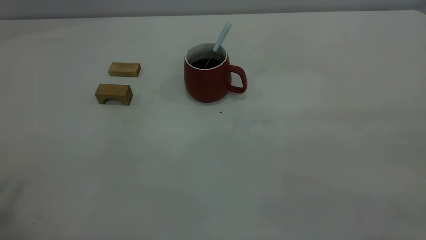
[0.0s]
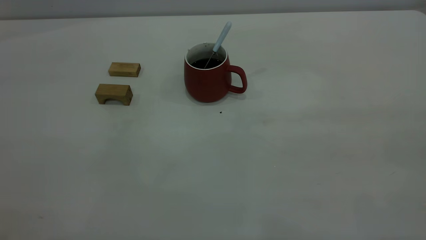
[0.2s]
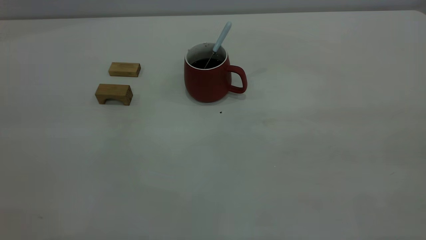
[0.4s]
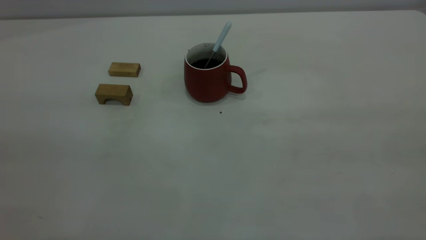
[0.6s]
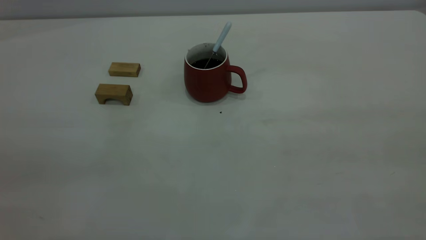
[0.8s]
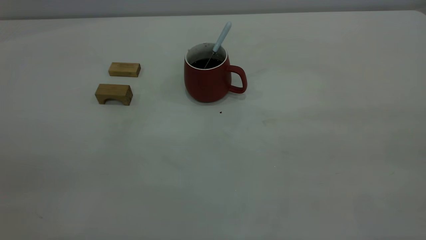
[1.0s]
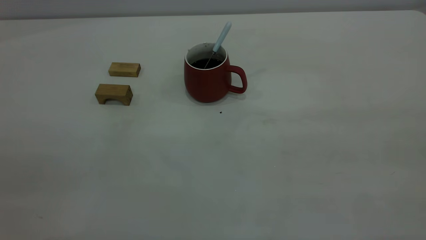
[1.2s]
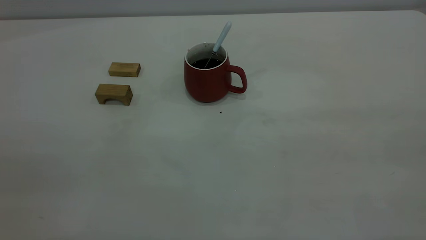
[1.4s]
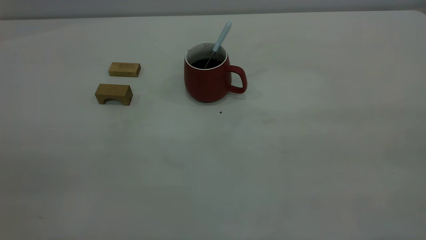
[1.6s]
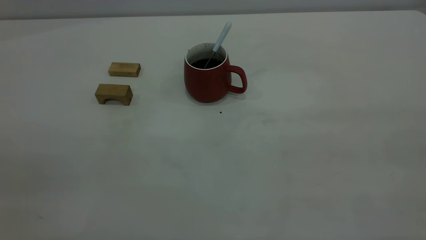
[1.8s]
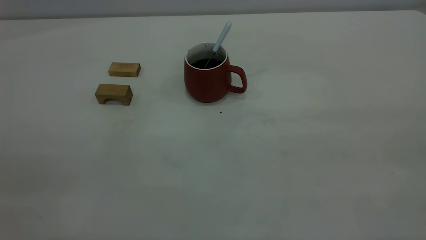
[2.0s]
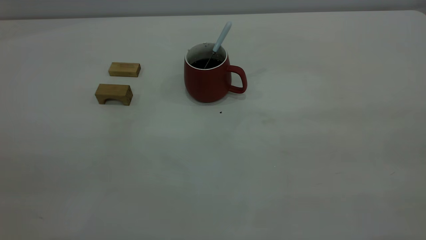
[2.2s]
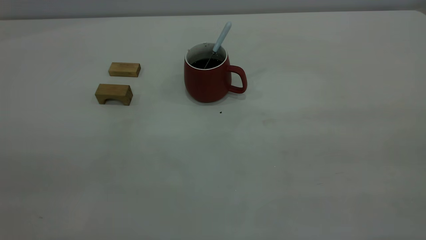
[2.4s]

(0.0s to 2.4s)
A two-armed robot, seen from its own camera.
1.2s - 2.4s: Neither gripper changes place.

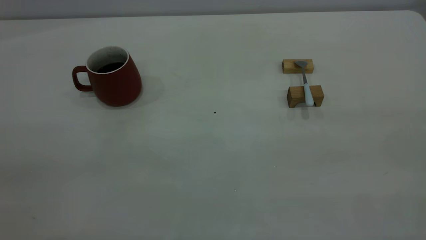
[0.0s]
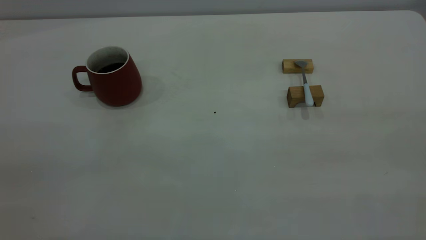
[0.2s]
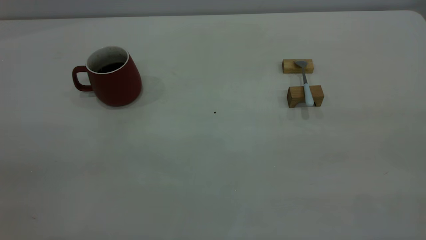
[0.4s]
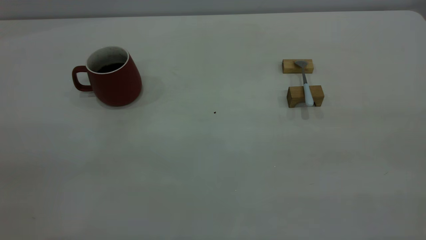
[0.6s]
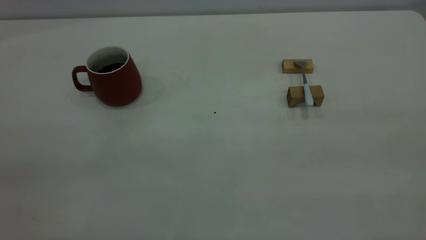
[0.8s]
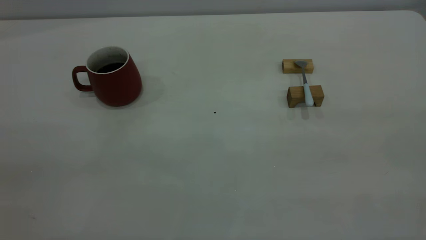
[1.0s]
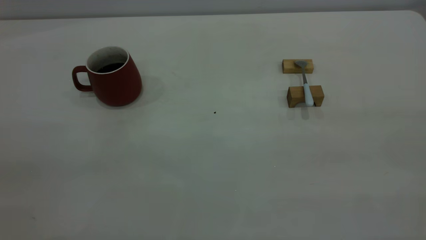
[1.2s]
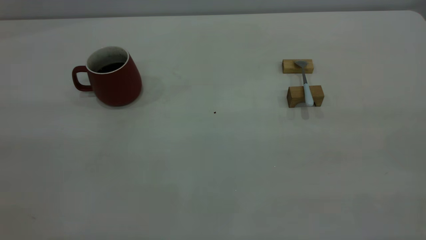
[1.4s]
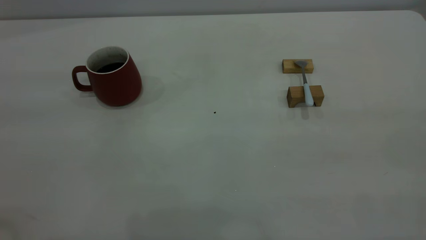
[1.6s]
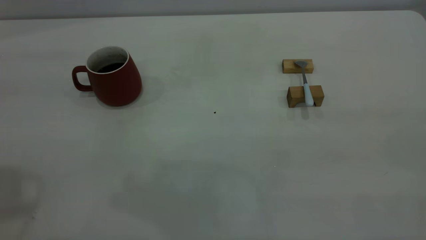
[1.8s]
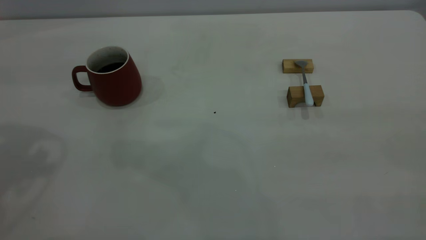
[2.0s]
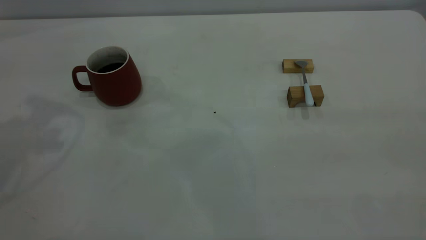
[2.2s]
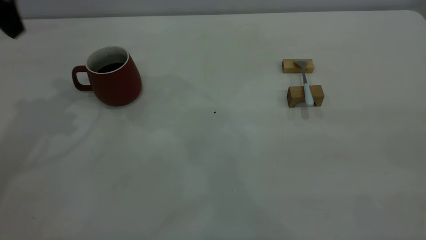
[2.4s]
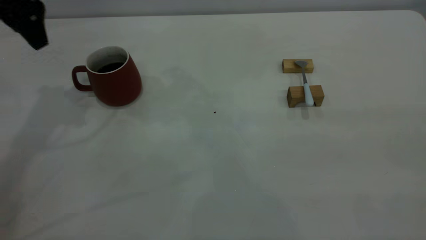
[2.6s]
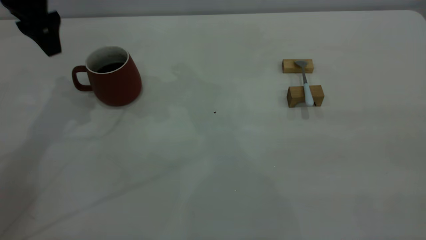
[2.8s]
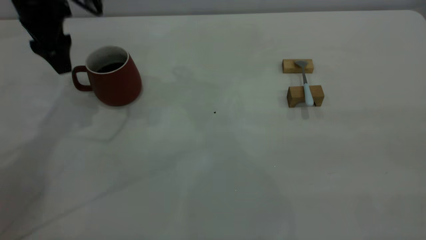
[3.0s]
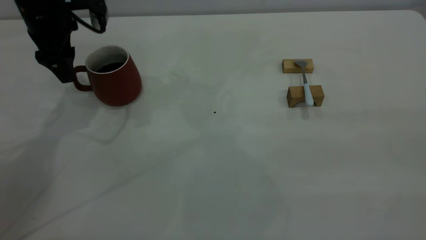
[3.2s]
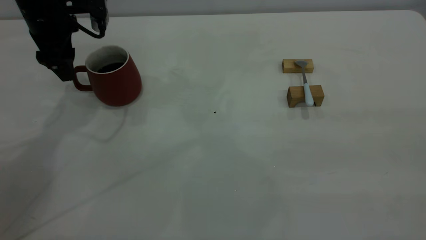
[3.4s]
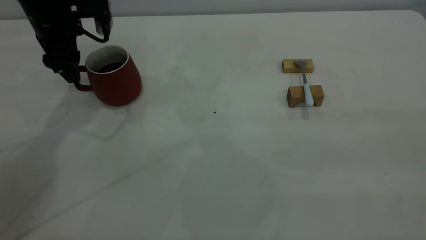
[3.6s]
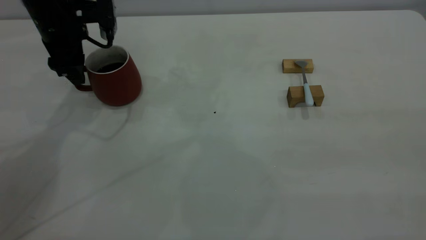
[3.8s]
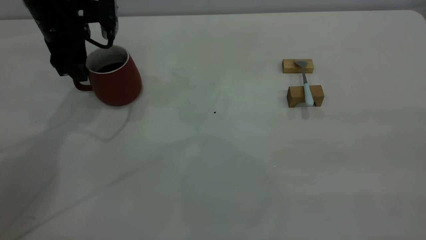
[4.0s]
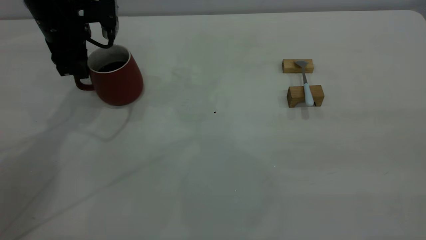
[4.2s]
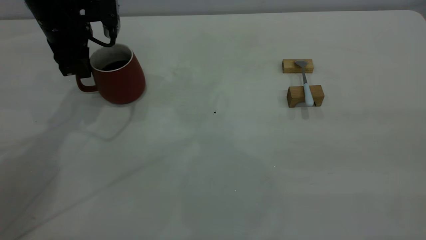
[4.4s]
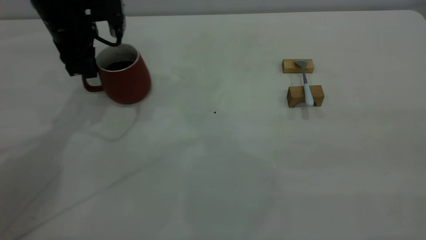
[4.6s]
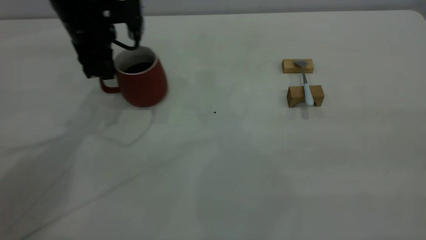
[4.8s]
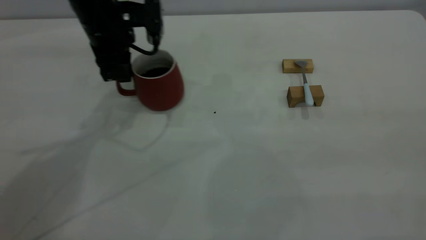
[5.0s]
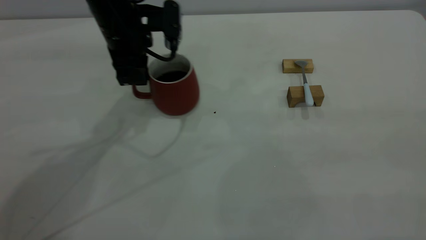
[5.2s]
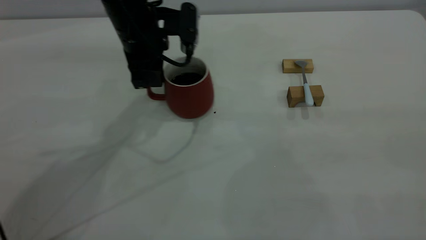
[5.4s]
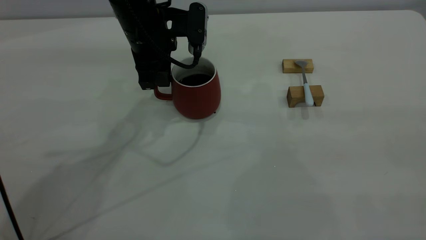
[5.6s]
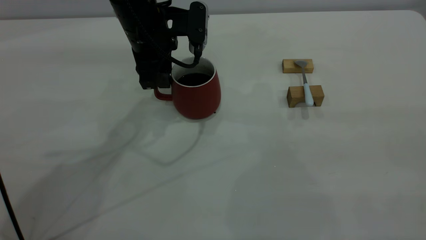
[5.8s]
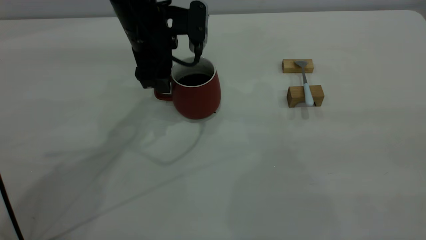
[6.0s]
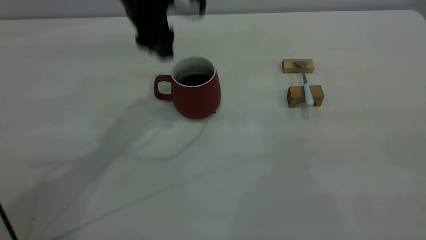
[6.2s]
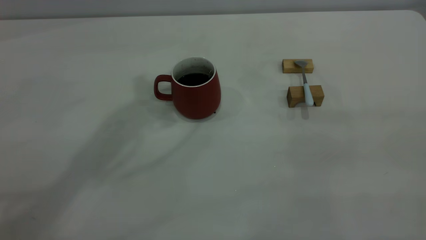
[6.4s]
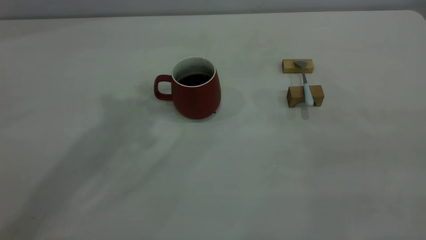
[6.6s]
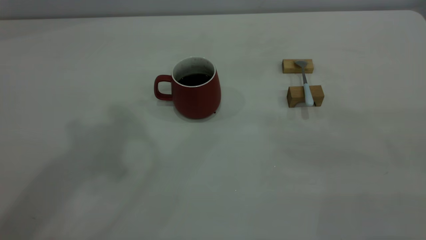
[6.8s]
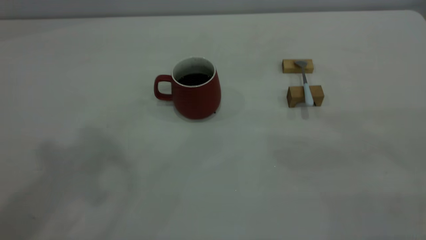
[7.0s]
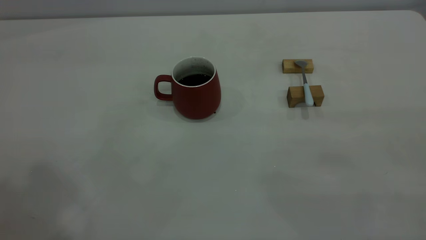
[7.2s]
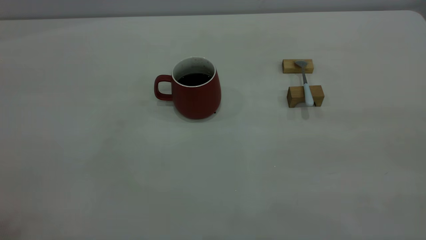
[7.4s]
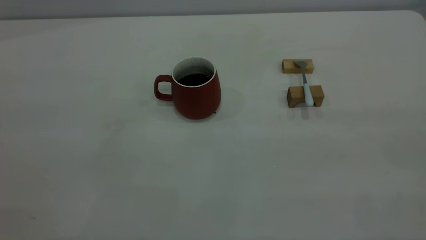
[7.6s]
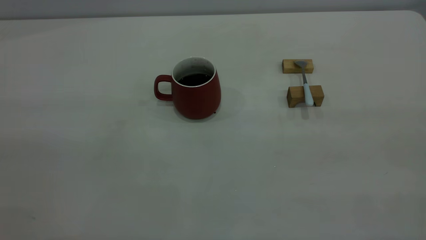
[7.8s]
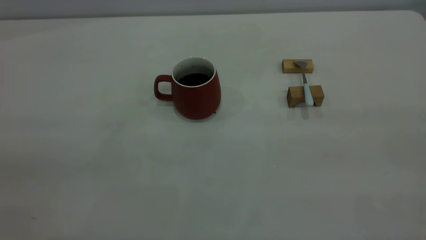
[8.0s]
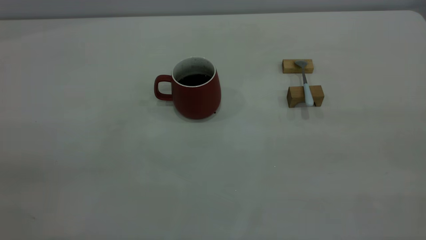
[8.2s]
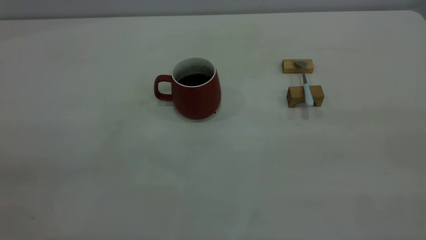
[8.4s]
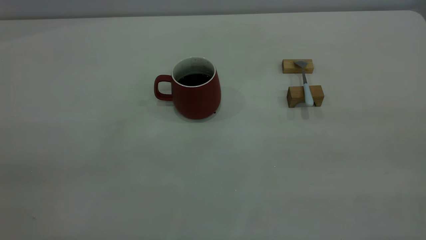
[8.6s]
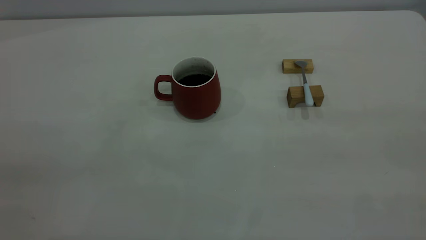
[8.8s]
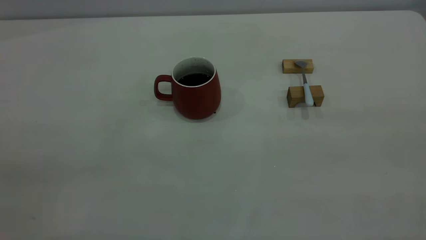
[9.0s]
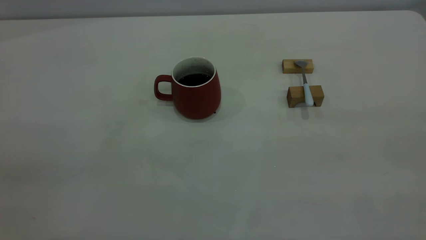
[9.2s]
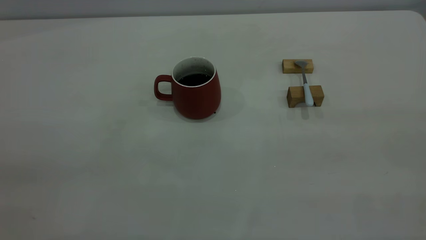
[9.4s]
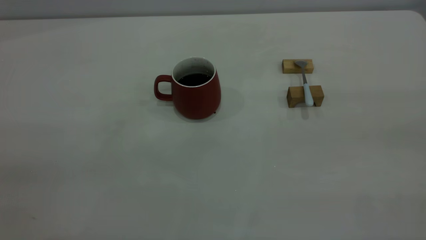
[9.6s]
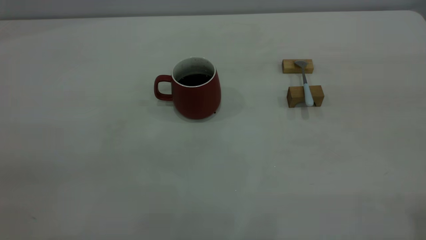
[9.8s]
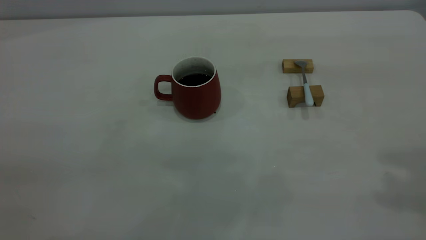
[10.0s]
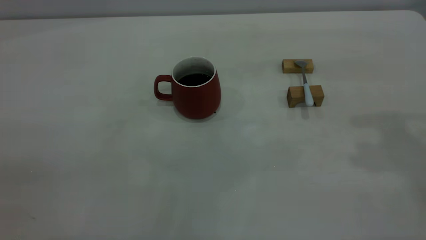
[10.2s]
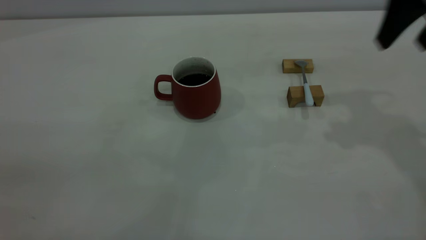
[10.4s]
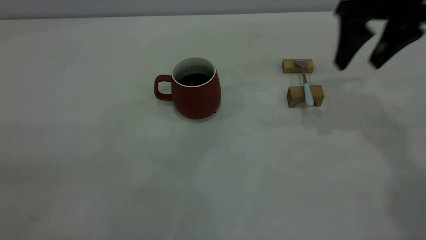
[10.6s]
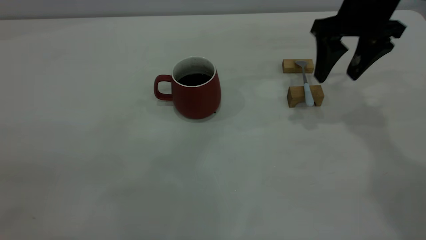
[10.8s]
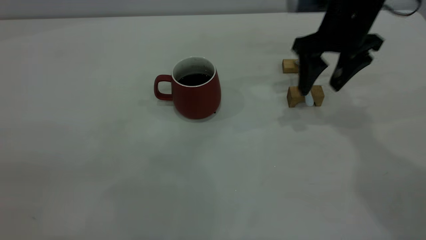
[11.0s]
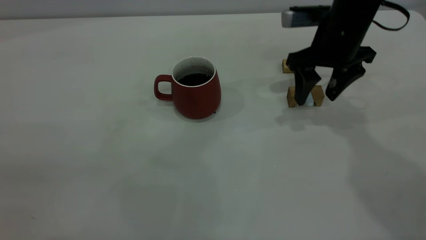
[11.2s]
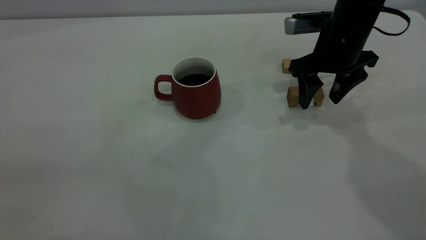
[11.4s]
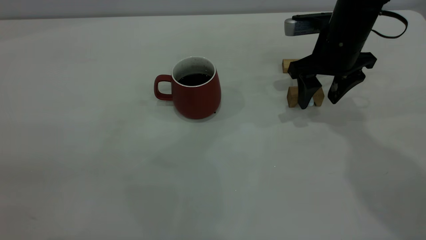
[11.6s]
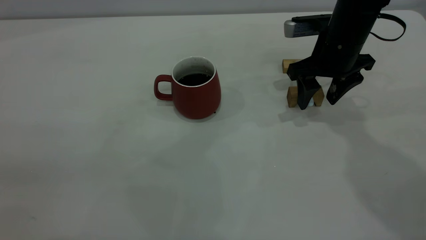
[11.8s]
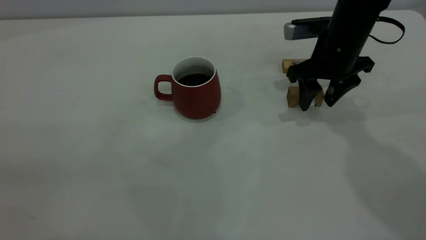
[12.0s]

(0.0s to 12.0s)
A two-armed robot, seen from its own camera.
Step, 0.0s - 6.0s: Move the cup with coffee to the center of view.
1.6s - 3.0s: The left gripper is displaced forward and downward by approximately 35 cm, and opens up.
3.0s - 4.4s: The left gripper closes.
4.4s - 6.0s: The left gripper travels to the right by some 15 cm, and opens.
6.0s - 7.6s: The left gripper shifts roughly 50 cm backward, upward and to the left, and closes its fingers.
9.0s - 10.4s: The right gripper travels forward by some 35 cm.
10.4s - 12.0s: The right gripper heads downward, to the left and forward, covering about 15 cm.

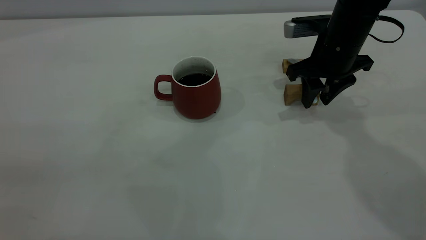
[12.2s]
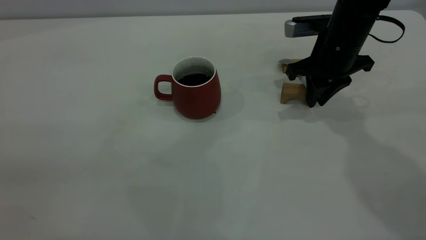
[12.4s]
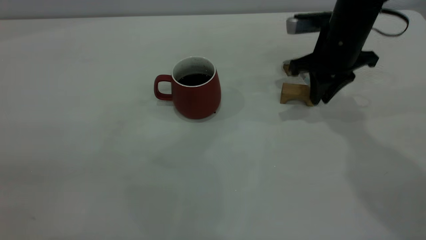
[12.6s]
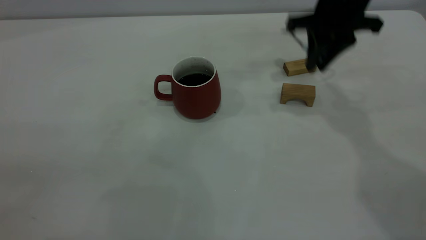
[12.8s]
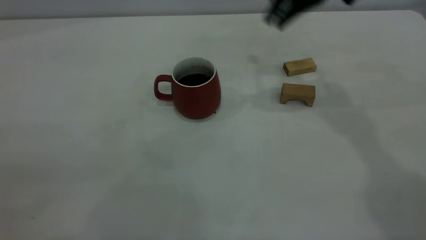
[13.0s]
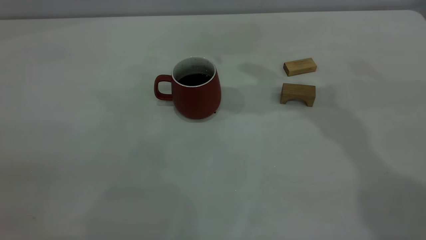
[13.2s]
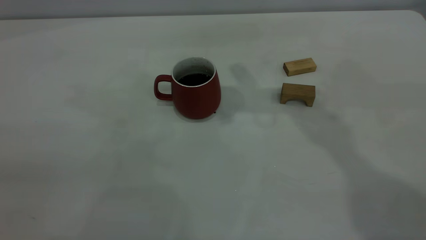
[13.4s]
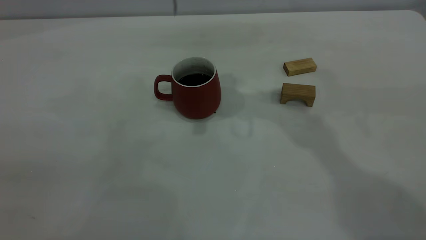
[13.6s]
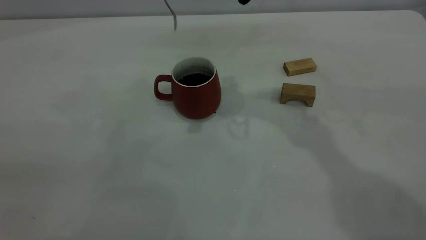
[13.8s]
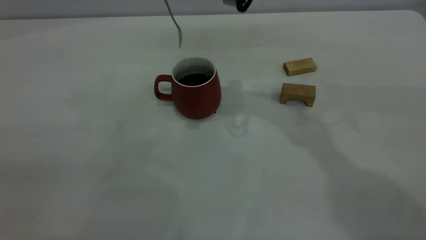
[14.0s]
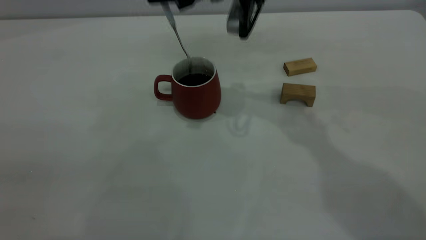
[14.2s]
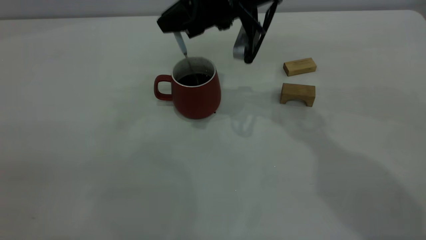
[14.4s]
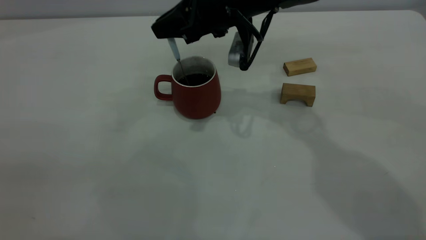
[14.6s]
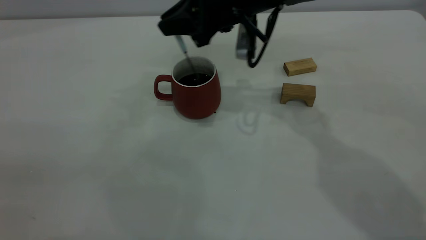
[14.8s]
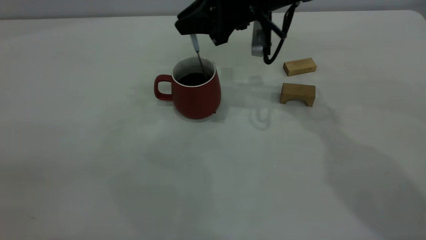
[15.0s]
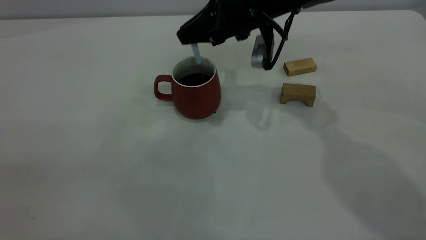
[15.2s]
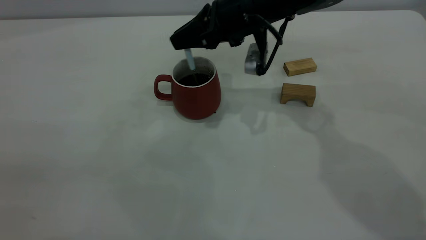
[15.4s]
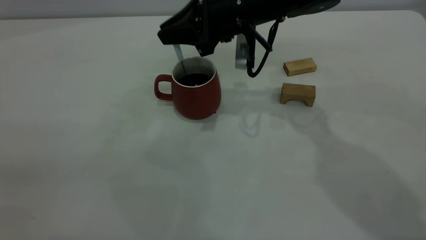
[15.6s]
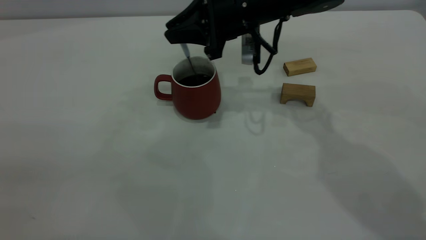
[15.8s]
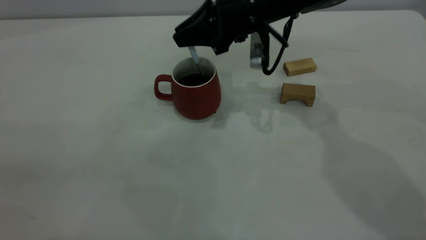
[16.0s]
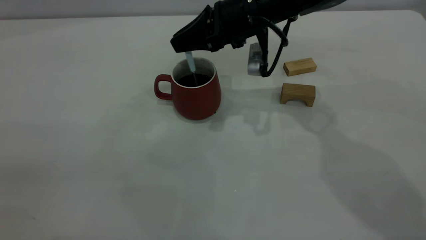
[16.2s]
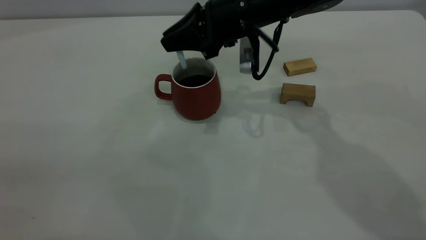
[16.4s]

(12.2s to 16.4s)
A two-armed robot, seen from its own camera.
12.2s - 13.6s: The right gripper moves upward and to the left, roughly 25 cm, and closes up.
13.6s - 15.0s: The right gripper moves downward, about 10 cm.
15.0s - 16.4s: The grippers make only small movements.
